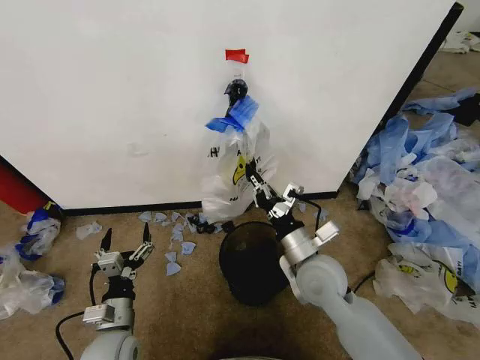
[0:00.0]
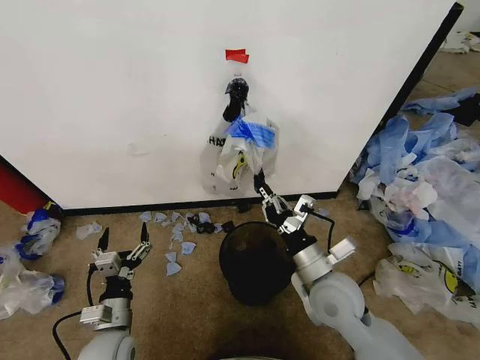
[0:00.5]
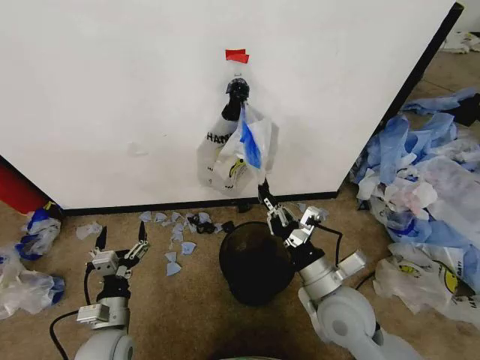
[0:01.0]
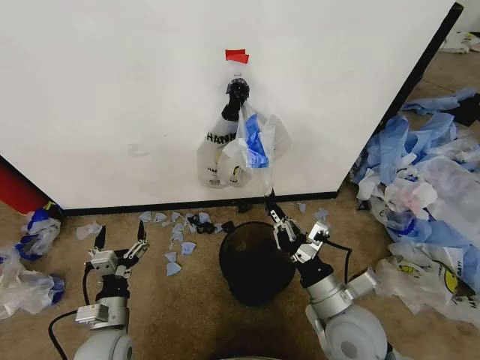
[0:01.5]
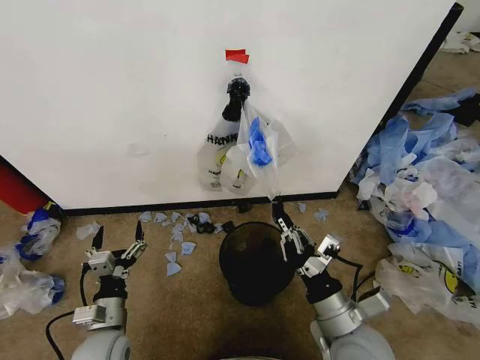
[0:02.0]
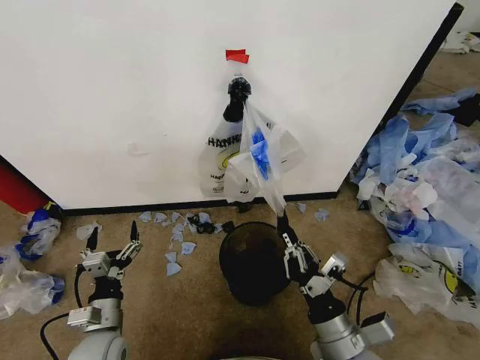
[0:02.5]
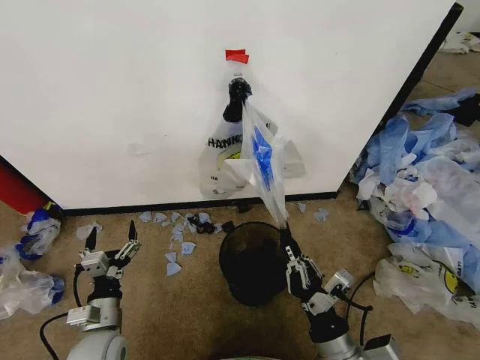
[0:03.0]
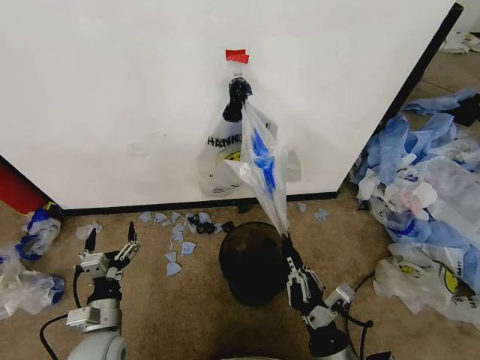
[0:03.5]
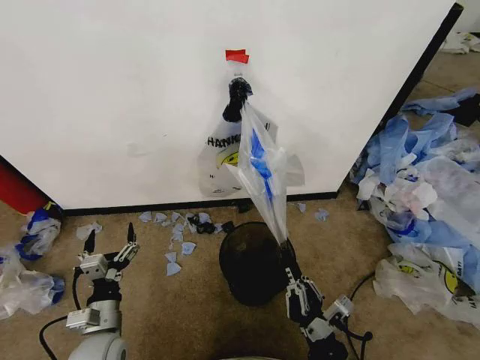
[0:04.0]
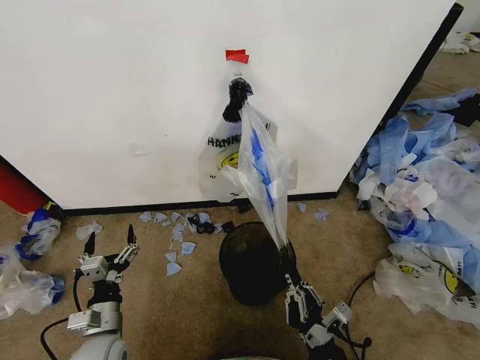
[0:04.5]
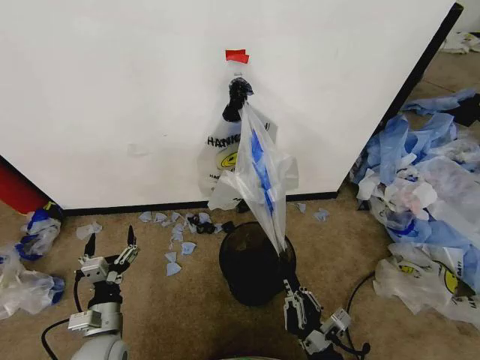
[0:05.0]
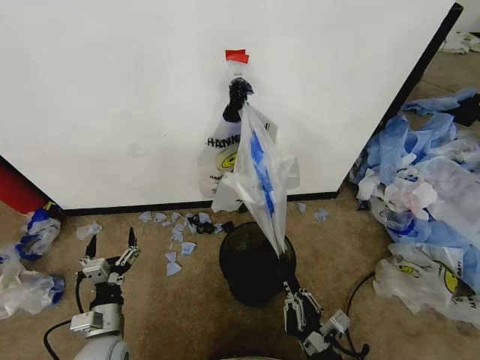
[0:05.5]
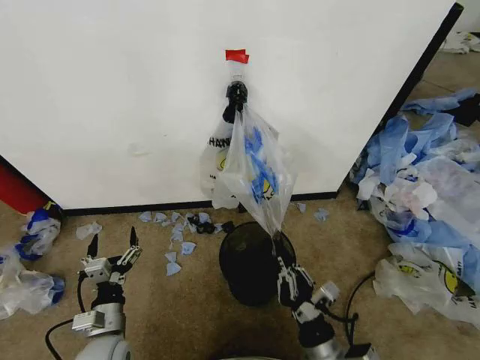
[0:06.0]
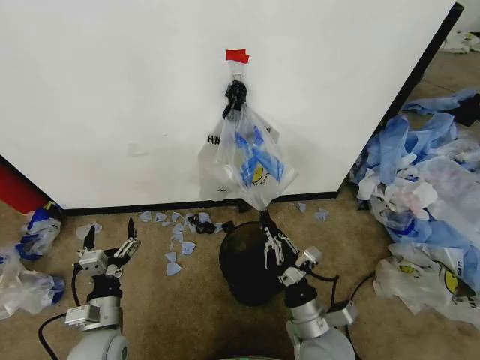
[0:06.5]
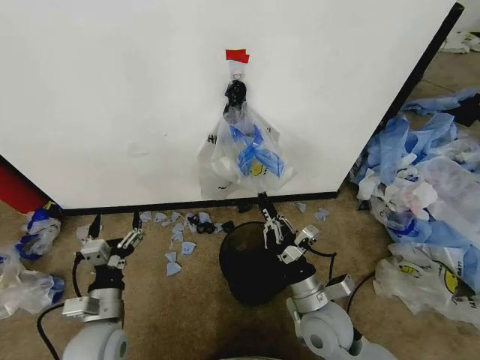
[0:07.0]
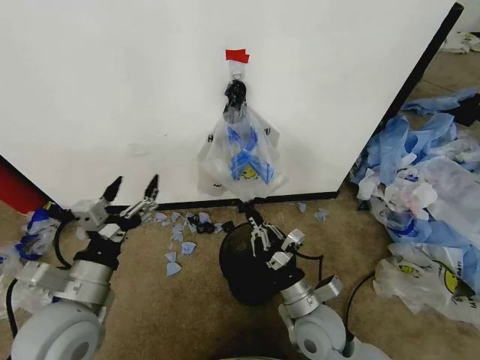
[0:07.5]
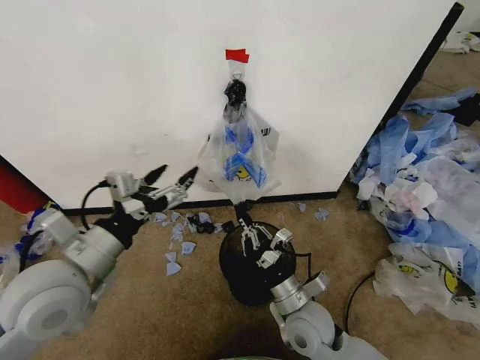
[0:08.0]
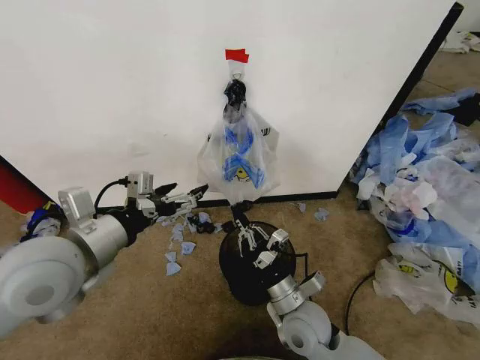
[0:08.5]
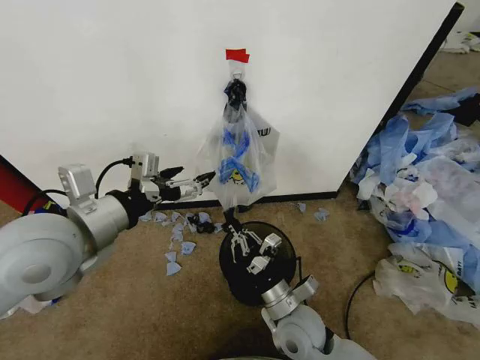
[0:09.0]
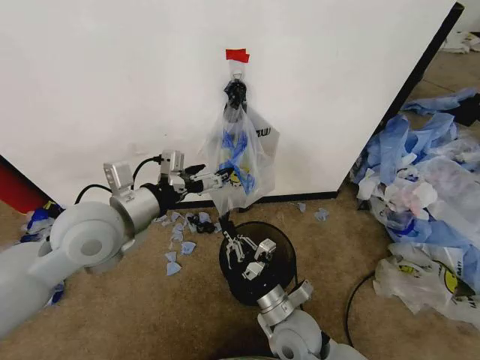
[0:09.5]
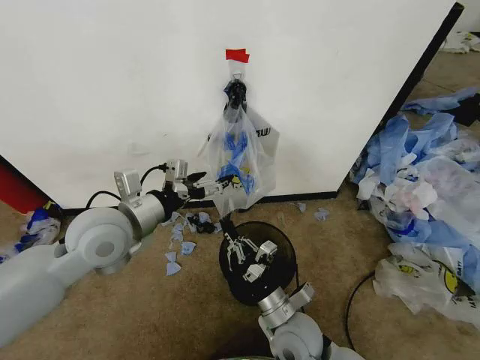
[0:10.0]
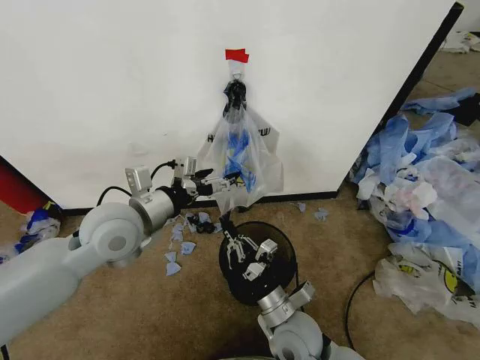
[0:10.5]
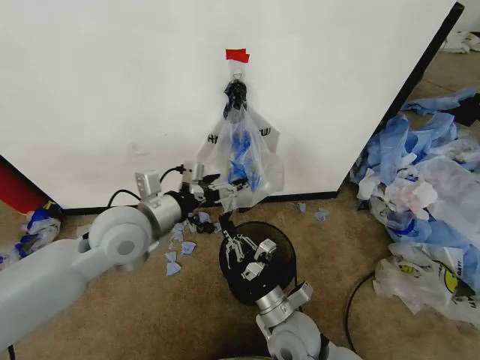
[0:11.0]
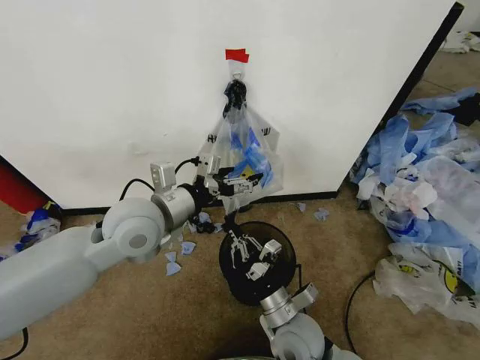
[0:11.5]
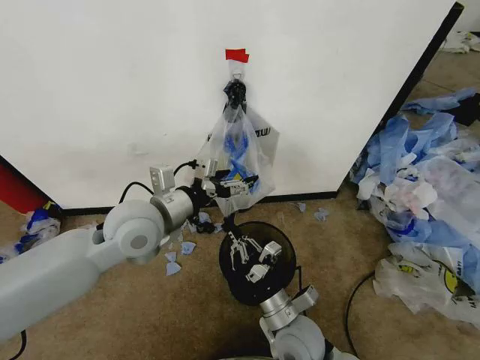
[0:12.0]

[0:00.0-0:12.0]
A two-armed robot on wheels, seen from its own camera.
Task of the whole recording: Pick up the garbage bag from the wall and place it over the trash bin.
0:00.0 to 0:02.0: The right gripper is displaced backward by about 10 cm.
0:02.0 to 0:04.0: The right gripper moves backward and downward, some 10 cm.
0:04.0 to 0:06.0: The grippers make only small movements.
0:06.0 to 0:08.0: The left gripper is displaced upward by approximately 25 cm. The right gripper travels forward by approximately 10 cm.
0:08.0 to 0:10.0: The left gripper is displaced forward by some 10 cm.
0:10.0 to 0:12.0: The left gripper ends up roughly 5 cm from where it was.

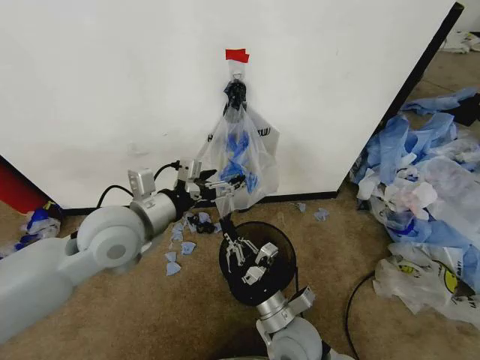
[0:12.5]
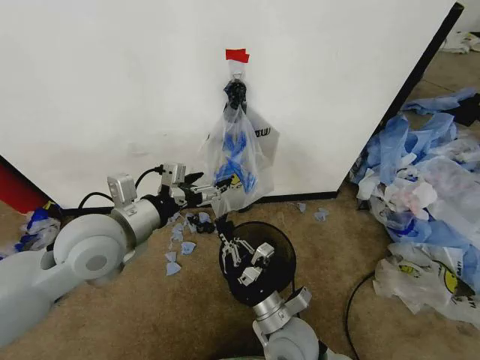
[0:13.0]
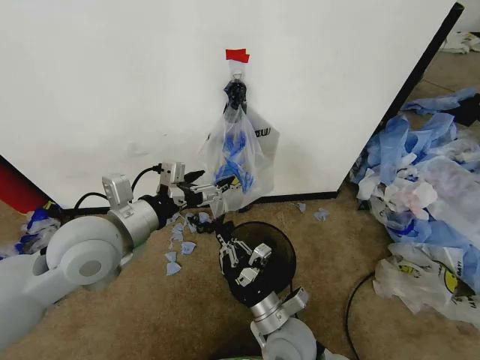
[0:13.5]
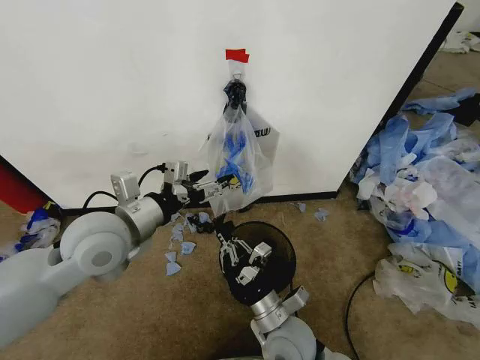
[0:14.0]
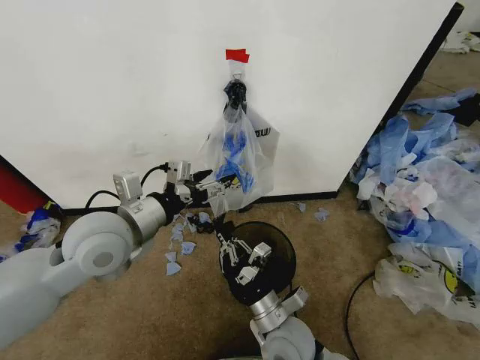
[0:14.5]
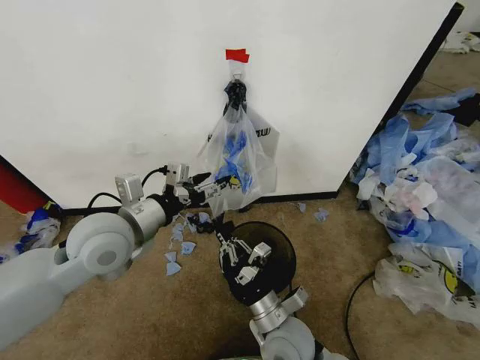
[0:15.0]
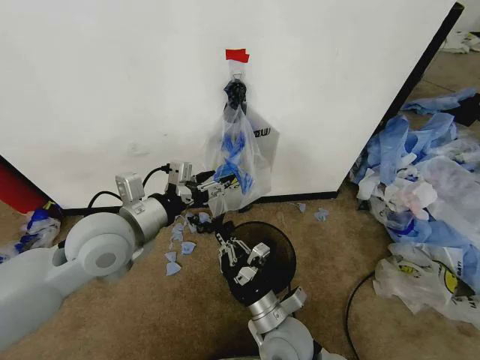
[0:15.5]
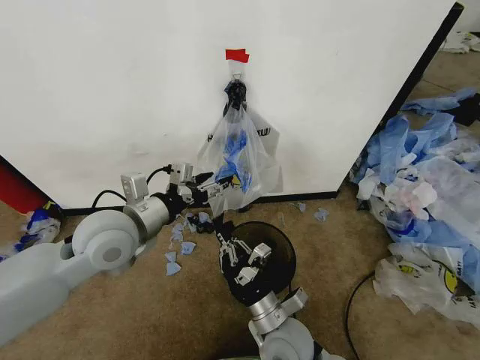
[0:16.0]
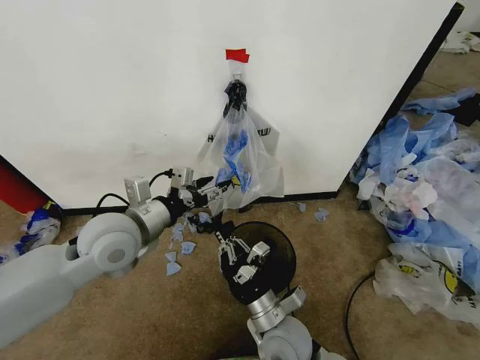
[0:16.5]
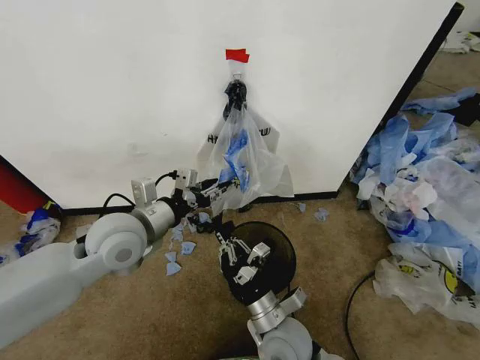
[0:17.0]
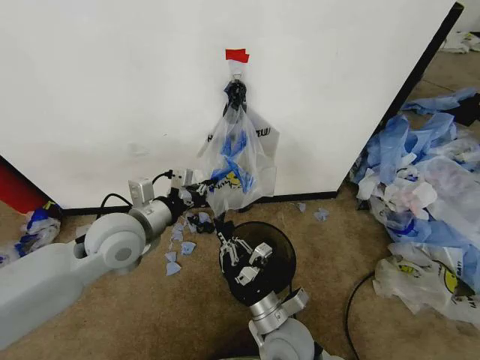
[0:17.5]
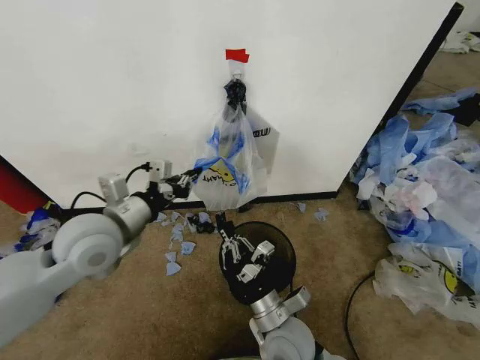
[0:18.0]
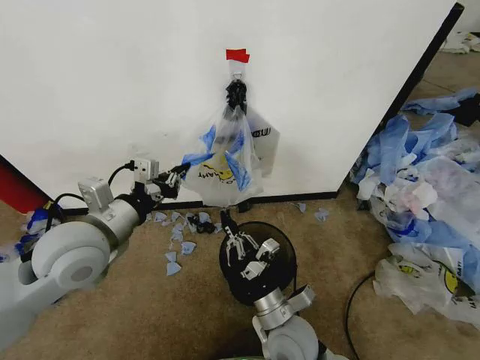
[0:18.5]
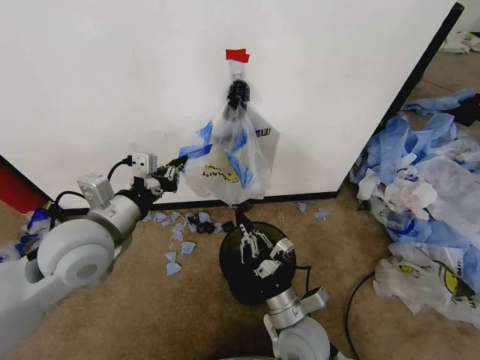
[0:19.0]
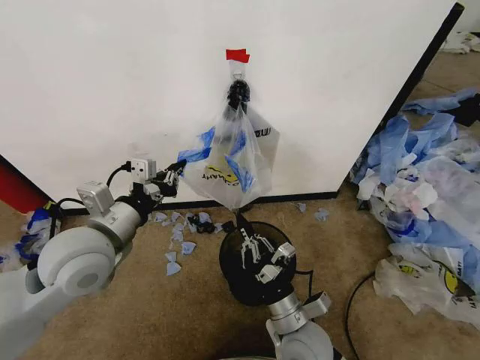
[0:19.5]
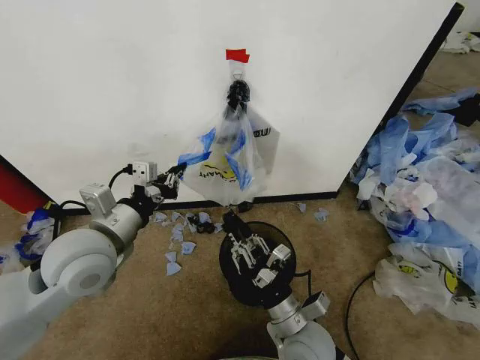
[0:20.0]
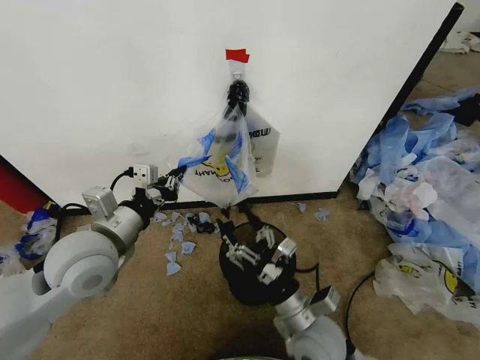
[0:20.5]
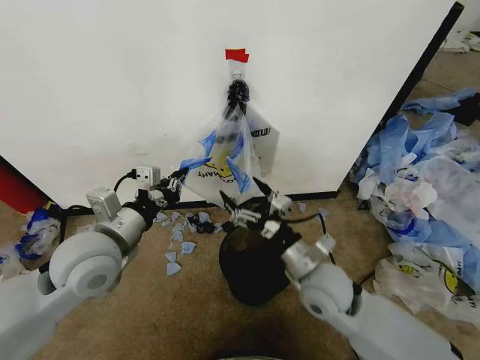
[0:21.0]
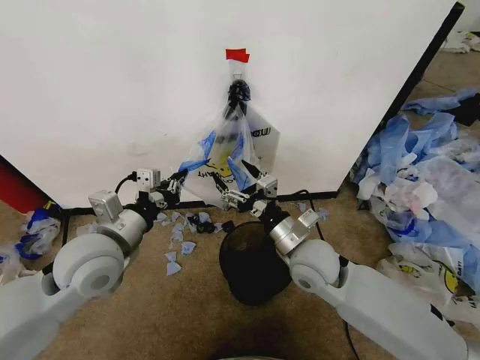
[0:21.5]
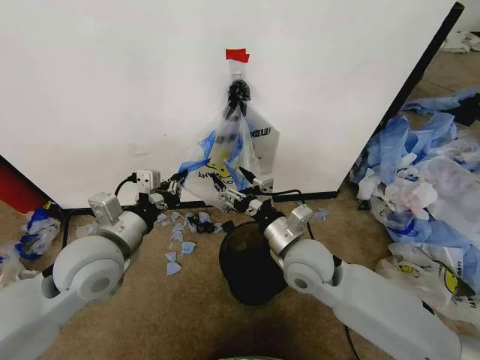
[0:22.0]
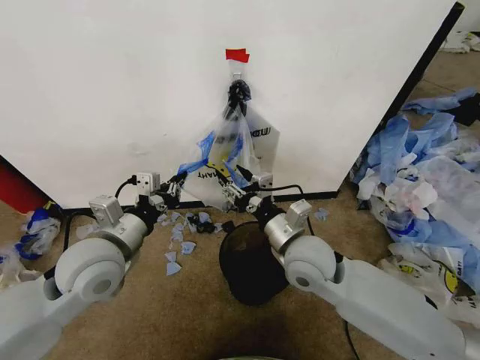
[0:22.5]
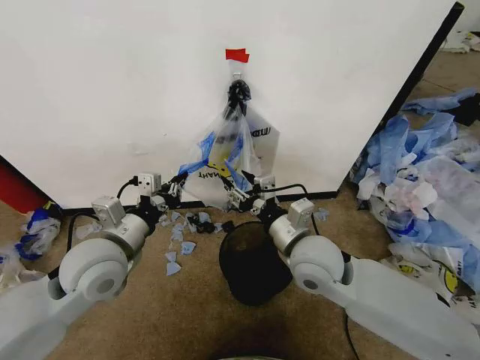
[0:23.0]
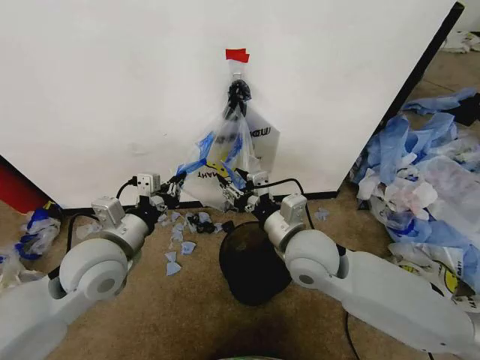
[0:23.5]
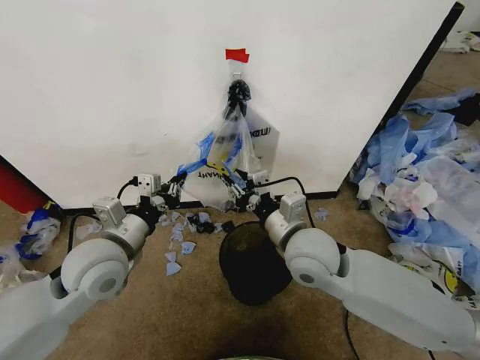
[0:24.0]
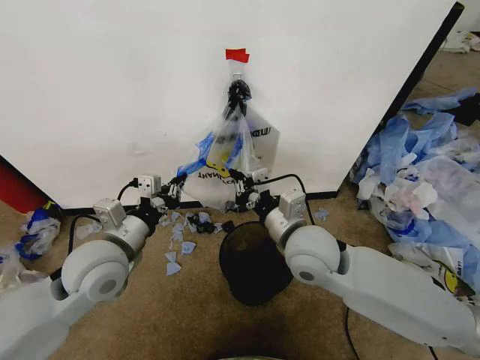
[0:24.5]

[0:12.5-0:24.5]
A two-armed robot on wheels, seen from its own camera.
Task of the whole recording: Pick up the garbage bag from the wall and place it over the trash bin.
0:12.5 to 0:16.5: There are only small adjustments of the grippers.
0:16.5 to 0:18.5: The left gripper shifts by about 5 cm, and closes up.
0:18.5 to 0:20.5: The right gripper opens up.
0:20.5 to 0:22.5: The right gripper travels forward and upward by some 15 cm.
0:22.5 to 0:24.5: The right gripper closes up.

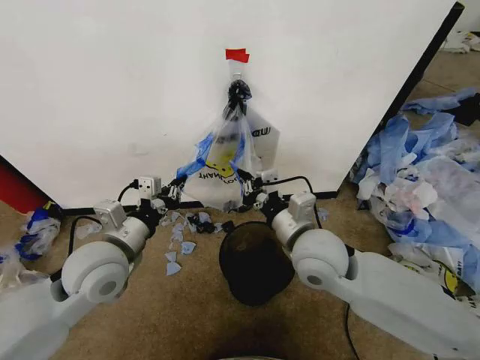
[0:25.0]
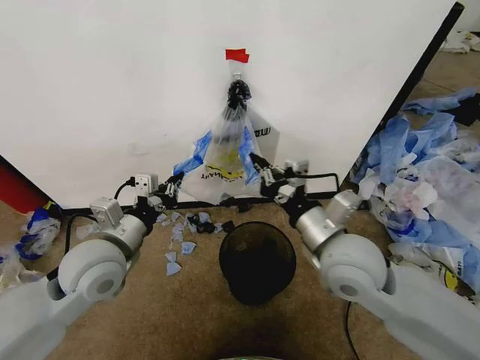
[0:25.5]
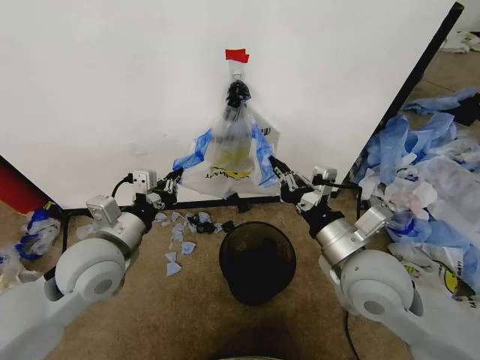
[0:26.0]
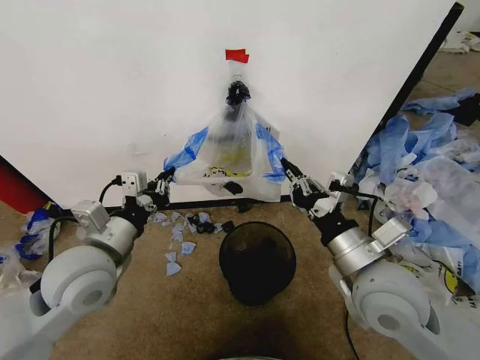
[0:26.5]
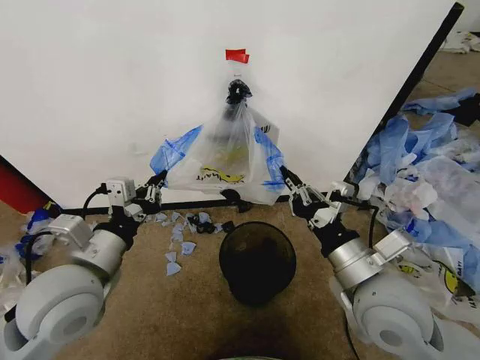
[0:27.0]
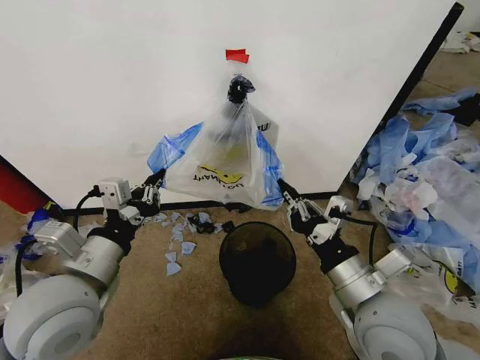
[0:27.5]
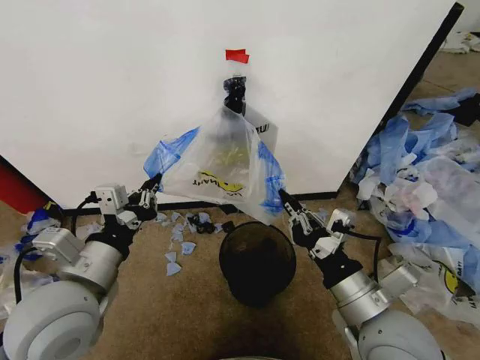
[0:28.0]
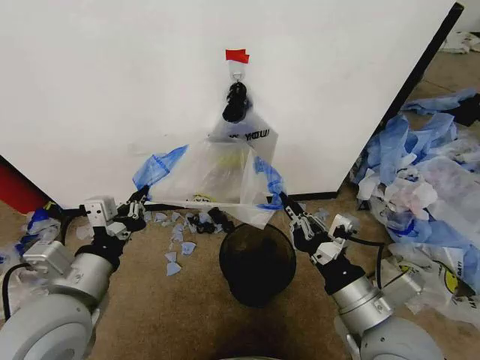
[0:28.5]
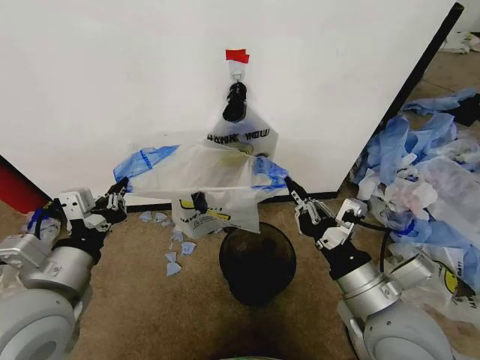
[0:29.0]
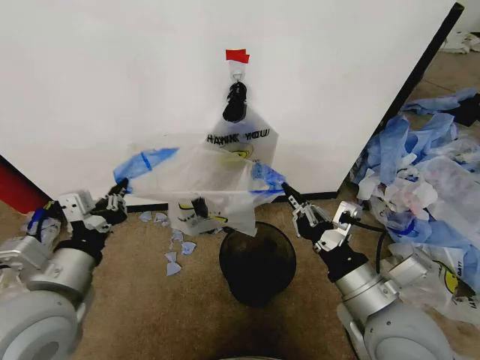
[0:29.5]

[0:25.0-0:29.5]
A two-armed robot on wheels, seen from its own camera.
Task of the whole recording: Pick up the garbage bag from the wall and place it over the trash bin.
0:25.0 to 0:27.0: The left gripper travels backward by approximately 5 cm. The right gripper moves backward and to the right, approximately 10 cm.
0:27.0 to 0:29.5: The grippers make only small movements.
